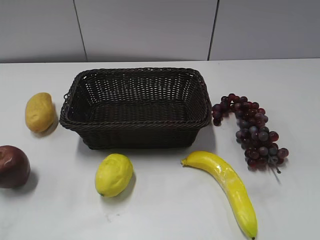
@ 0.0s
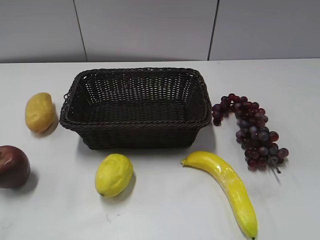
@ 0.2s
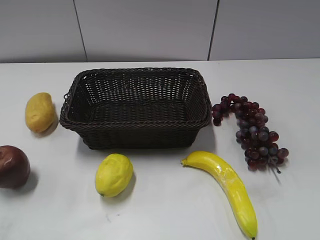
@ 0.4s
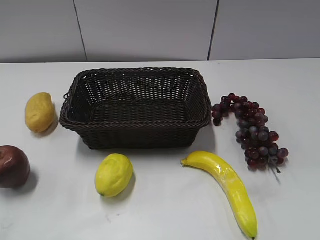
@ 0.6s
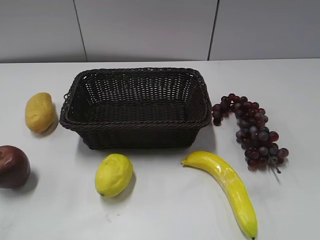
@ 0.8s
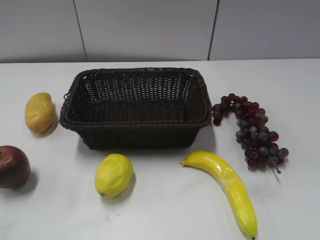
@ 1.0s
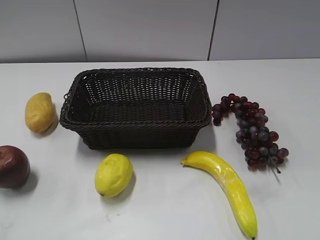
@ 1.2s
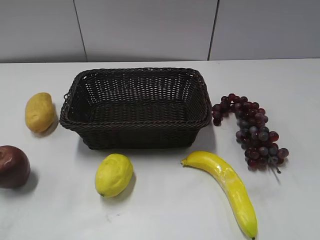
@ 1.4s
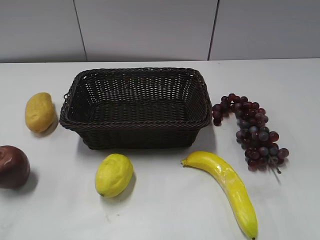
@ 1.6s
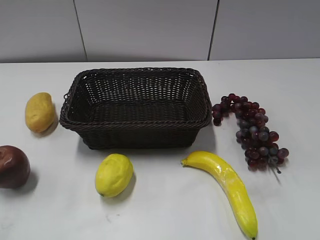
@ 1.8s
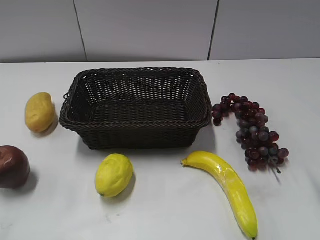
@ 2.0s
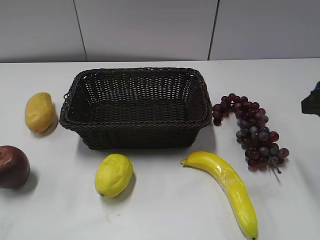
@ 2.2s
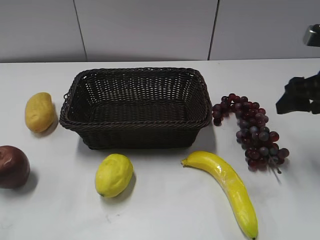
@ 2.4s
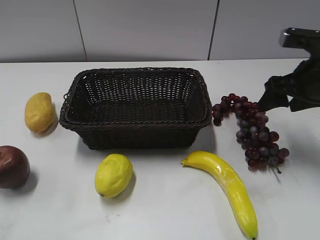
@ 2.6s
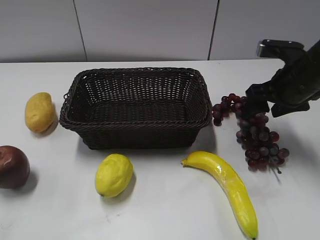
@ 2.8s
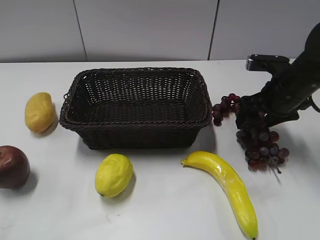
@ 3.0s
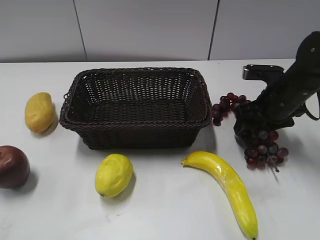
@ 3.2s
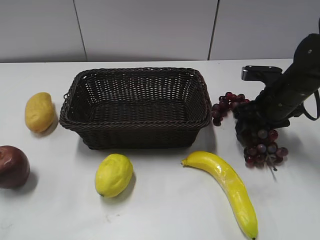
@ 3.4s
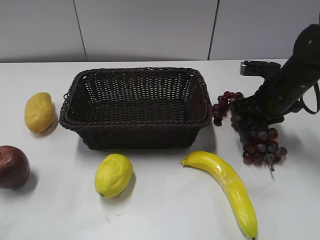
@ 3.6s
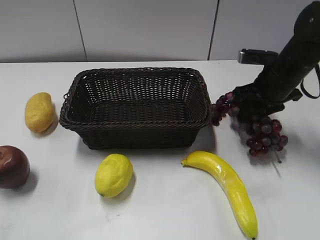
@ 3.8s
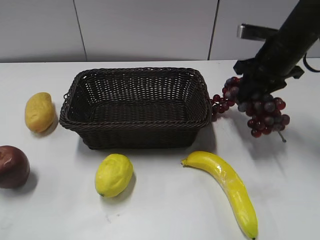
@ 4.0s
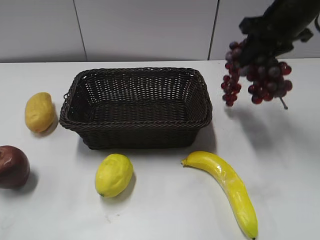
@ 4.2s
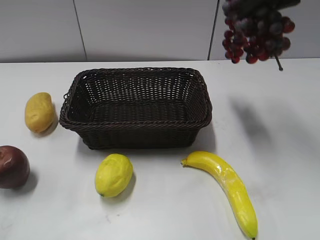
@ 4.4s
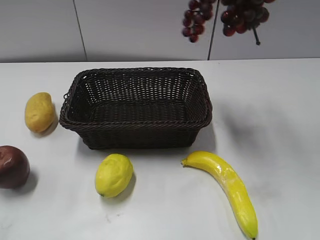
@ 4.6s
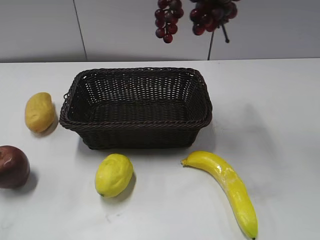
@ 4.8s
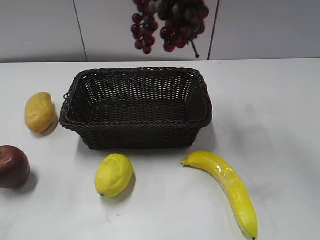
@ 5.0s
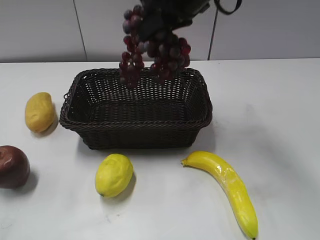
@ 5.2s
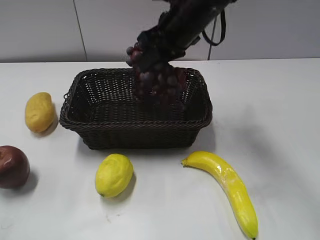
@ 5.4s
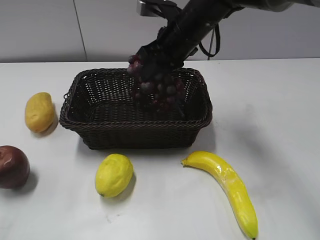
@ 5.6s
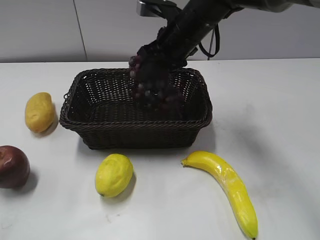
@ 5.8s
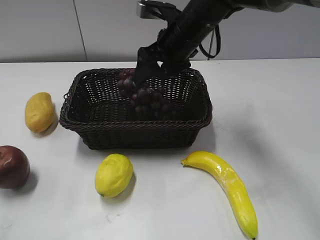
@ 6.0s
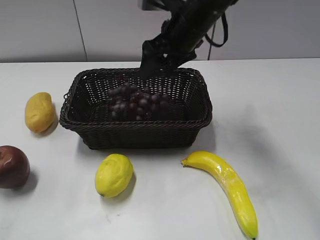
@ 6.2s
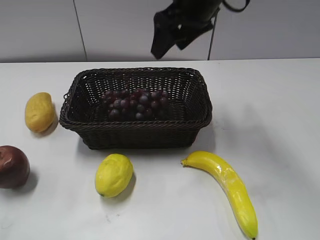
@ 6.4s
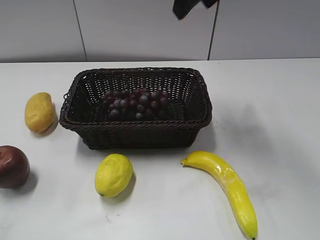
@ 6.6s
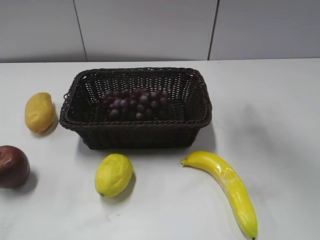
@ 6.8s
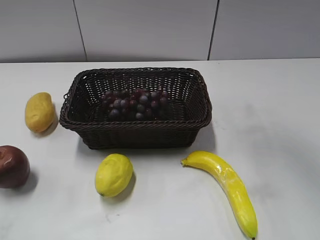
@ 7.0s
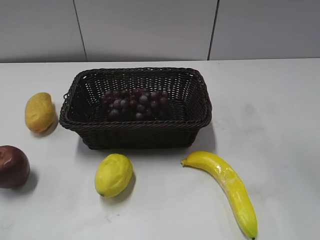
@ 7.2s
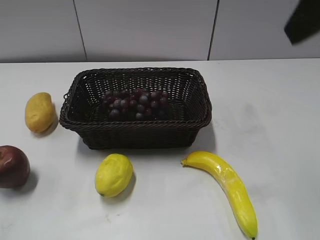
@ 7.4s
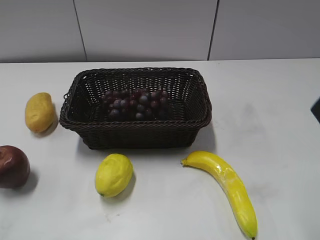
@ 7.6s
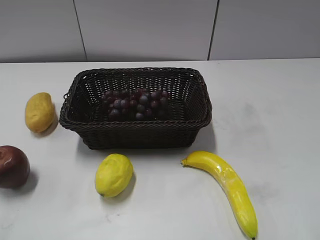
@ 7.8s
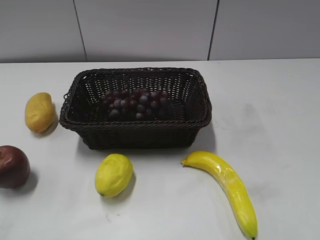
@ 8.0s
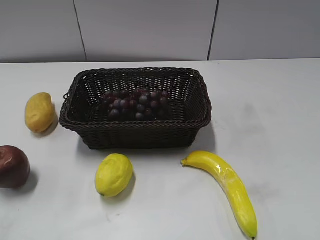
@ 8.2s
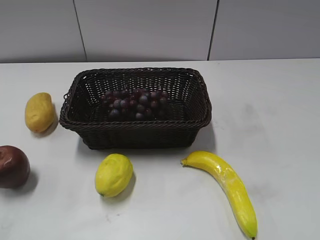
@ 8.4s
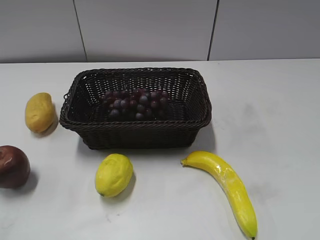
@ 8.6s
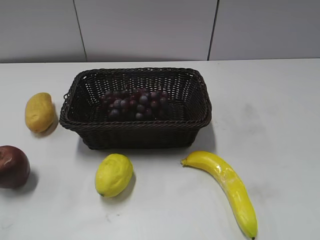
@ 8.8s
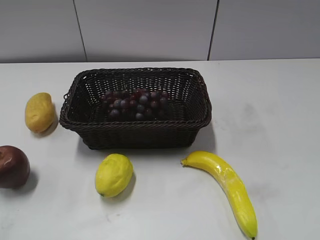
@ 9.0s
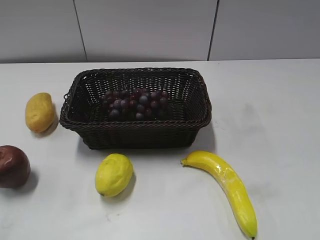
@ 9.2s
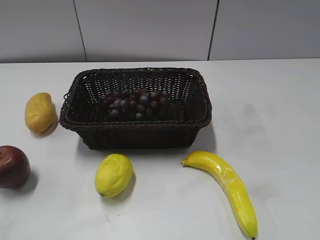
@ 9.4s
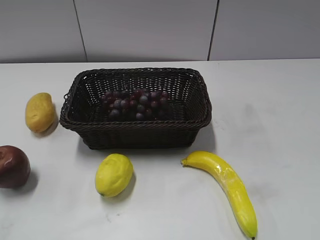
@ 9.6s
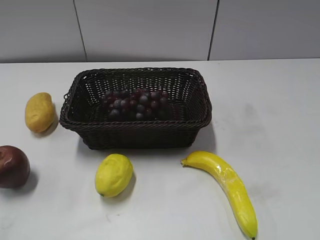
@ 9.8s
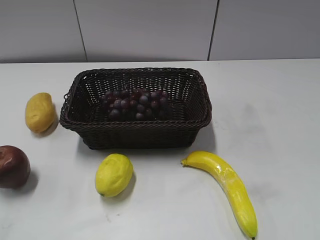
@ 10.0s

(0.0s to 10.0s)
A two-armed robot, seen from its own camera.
Step, 2.2s - 4.0s: Grasp the grape with right gripper.
Step, 4.2s - 6.2s: Place the grape in the basket with right gripper.
1.4s - 2.8s: The right gripper goes some 30 cm forward and downward.
2.8s - 4.2s: The right gripper is displaced upward and forward by roughly 10 cm, and closes its fingers.
4.2s - 5.8s: The right gripper goes some 15 cm to the left, and opens its fingers.
5.8s - 7.2s: The right gripper heads upward, backward and to the right, covering roughly 30 cm.

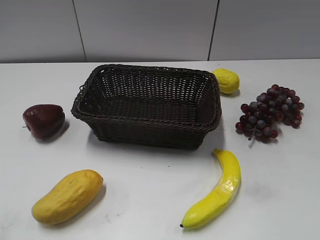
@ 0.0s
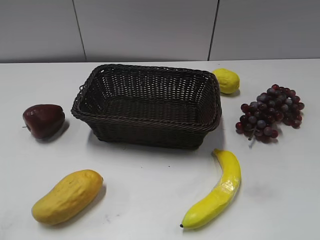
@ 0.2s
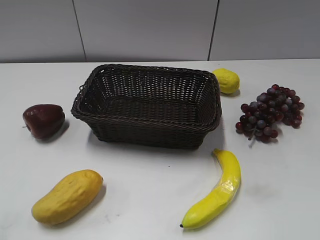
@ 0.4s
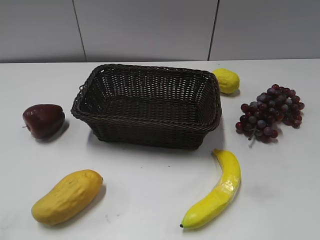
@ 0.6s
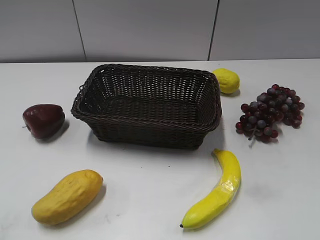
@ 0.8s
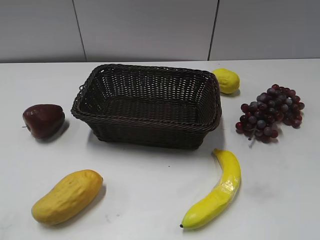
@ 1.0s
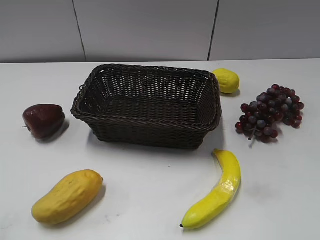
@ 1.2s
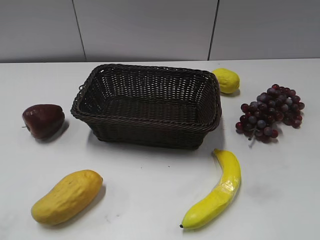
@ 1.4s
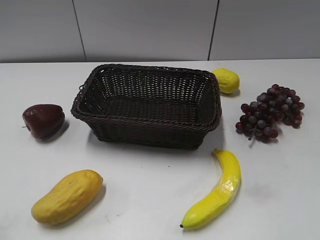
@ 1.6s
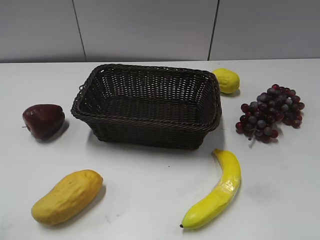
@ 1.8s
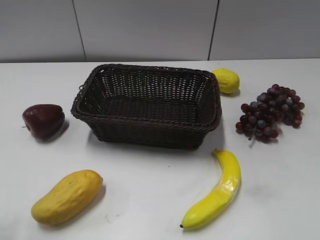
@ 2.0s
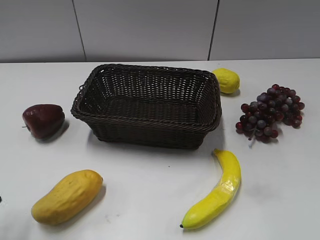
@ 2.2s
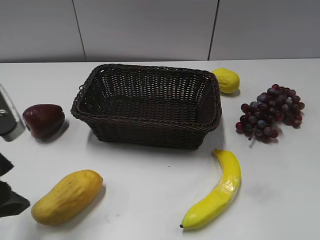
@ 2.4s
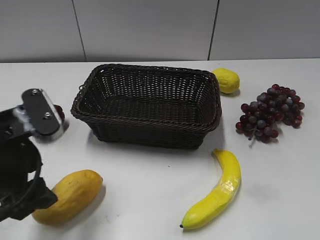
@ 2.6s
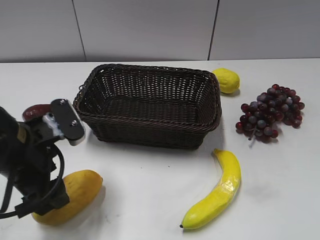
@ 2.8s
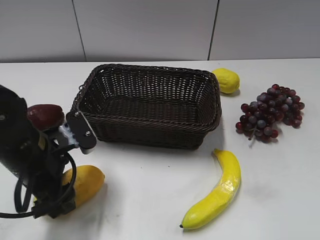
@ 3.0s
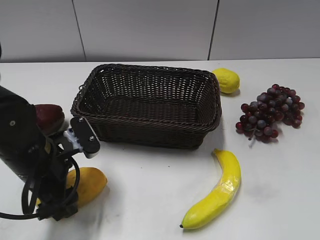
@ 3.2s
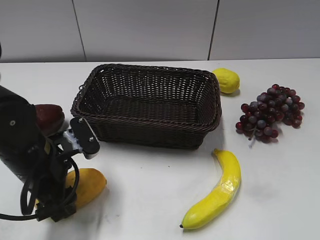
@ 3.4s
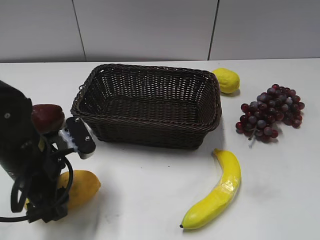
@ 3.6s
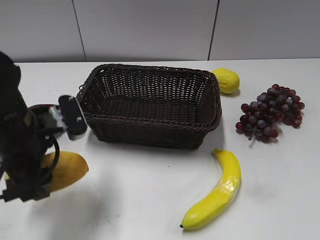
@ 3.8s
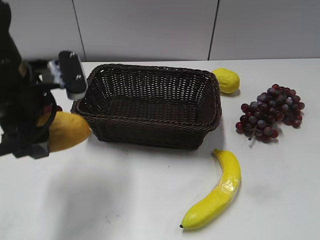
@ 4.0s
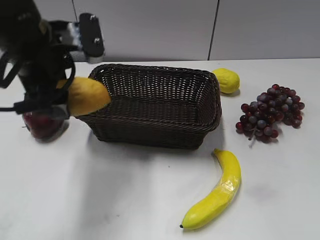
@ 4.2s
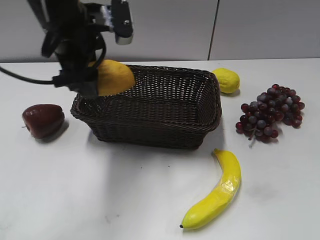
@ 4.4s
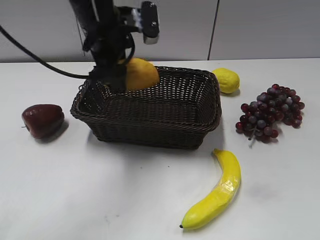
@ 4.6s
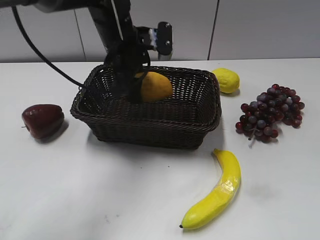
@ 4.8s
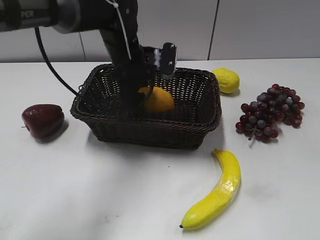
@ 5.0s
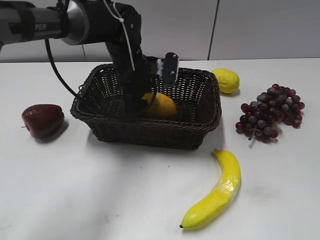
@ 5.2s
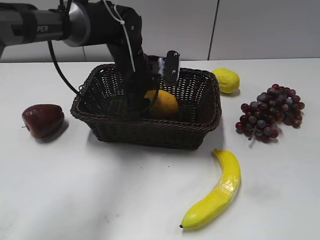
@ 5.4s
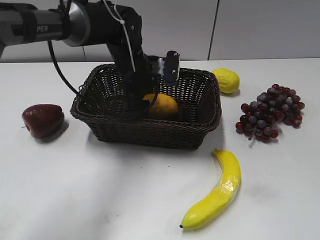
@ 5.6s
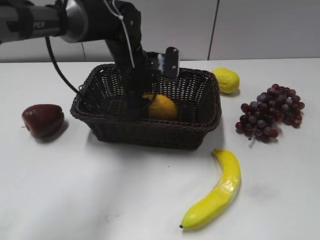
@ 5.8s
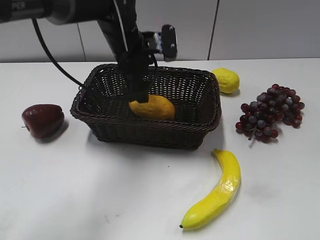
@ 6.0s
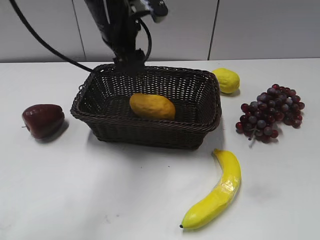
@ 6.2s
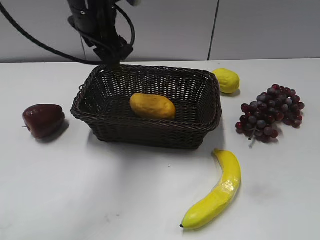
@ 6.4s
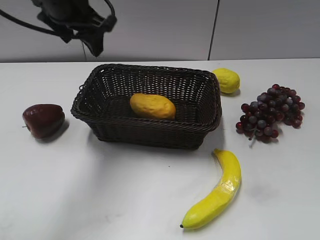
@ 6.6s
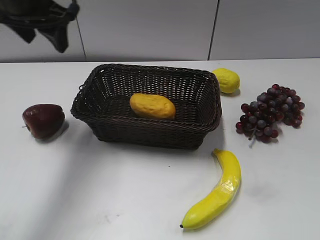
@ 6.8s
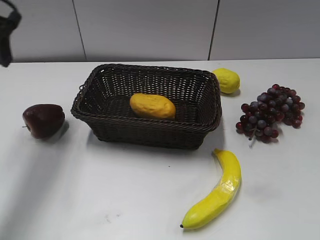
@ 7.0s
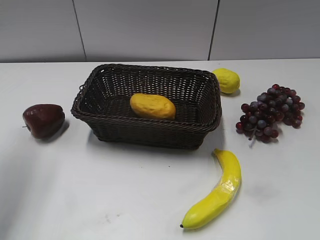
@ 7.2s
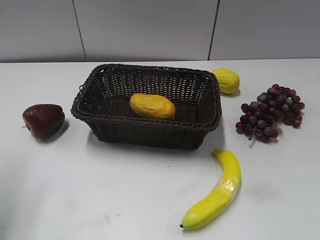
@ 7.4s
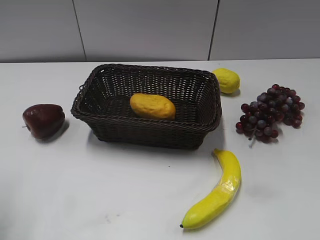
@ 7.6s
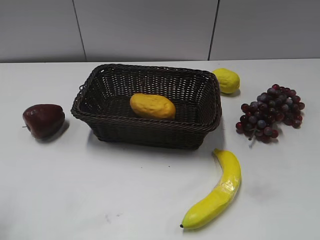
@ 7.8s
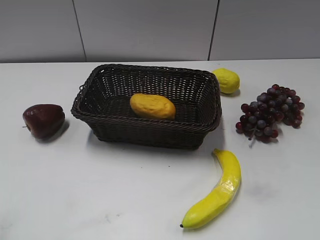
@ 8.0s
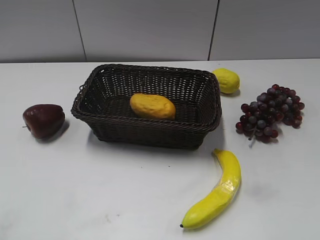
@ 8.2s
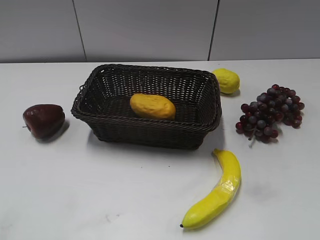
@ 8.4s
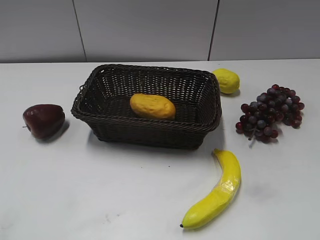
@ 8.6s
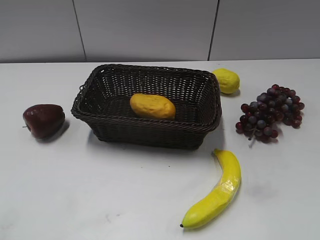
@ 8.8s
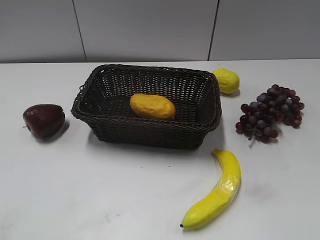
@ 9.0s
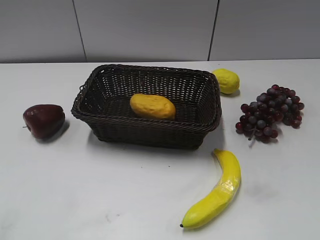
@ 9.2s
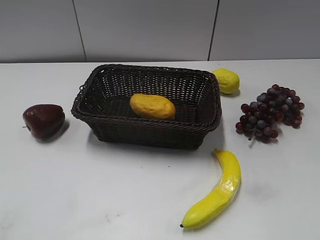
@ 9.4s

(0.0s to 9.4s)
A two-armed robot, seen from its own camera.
Step, 2.2s - 3.4s: Grasp the mango with left gripper.
Step, 3.6s - 5.6s: Place the mango in the basket with left gripper.
1.6s - 3.2s: The left gripper shifts about 25 cm downward, forward and to the right.
3.2s - 4.8s: The left gripper heads forward, to the right and upward, covering about 25 cm, and closes up.
4.8s - 6.2s: The left gripper travels upward by roughly 5 cm, and opens its fingers.
6.2s - 7.8s: The left gripper moves backward and to the left, roughly 35 cm, and closes up.

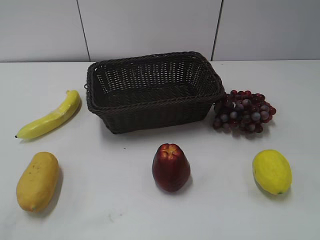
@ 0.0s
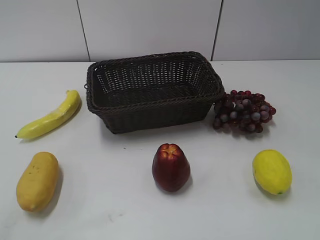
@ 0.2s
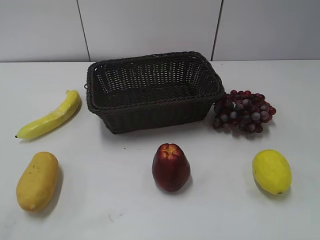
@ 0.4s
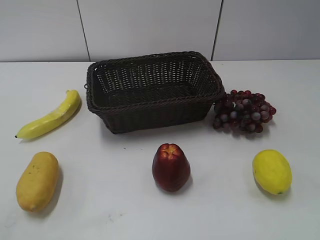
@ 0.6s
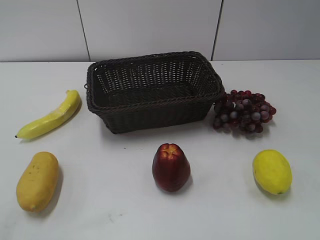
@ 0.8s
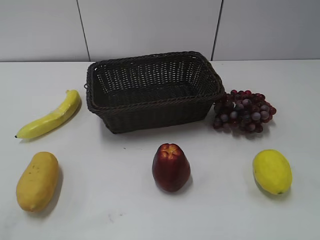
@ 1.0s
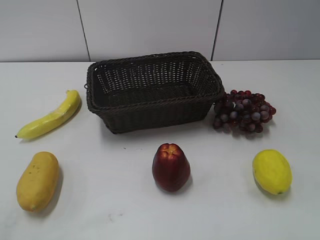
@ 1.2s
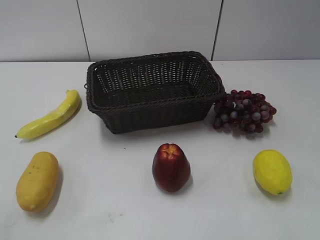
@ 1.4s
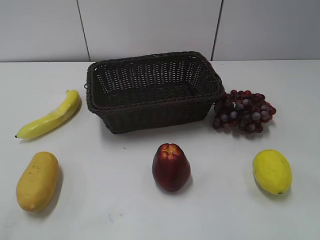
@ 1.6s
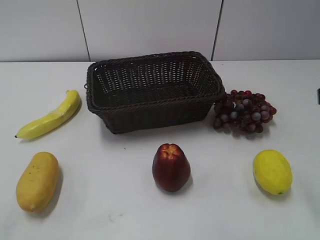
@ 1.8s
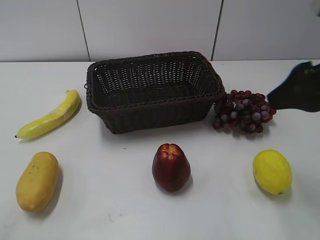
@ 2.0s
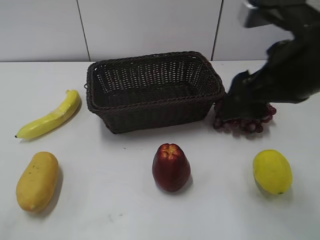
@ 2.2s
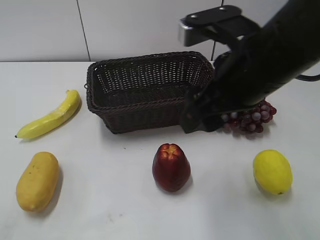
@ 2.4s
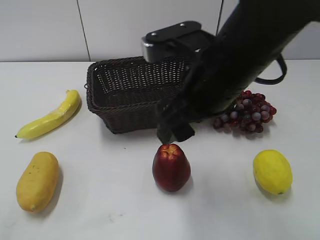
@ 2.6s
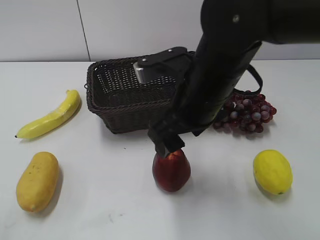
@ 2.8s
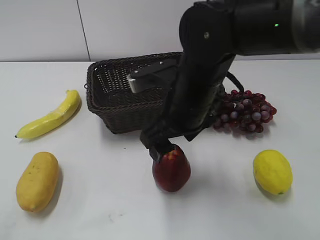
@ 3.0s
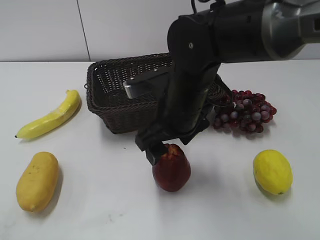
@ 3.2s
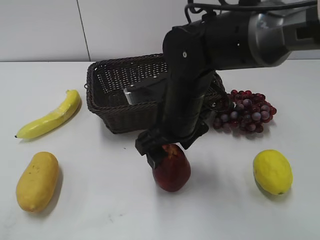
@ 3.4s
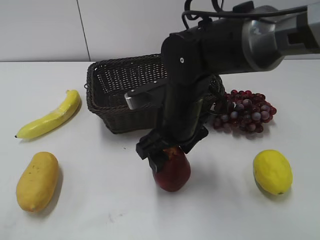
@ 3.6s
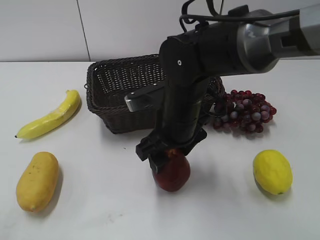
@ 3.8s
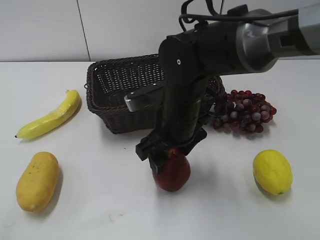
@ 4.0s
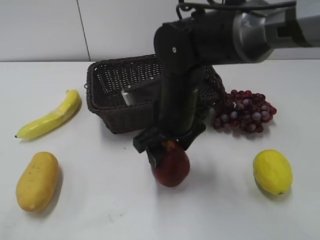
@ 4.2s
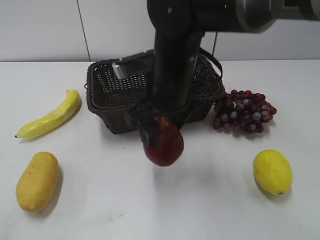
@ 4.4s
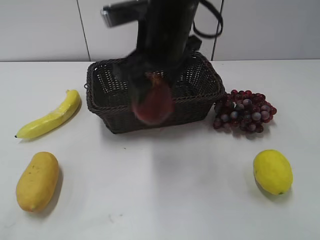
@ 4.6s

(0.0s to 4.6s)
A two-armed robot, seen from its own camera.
Step, 1.8s - 3.8s: Grasp the apple with right gripper.
1.6s - 3.0s: The right gripper moves to the left, forward and downward, roughly 30 cm.
3.0s - 4.6s: The right gripper heads upward, covering roughly 10 cm.
